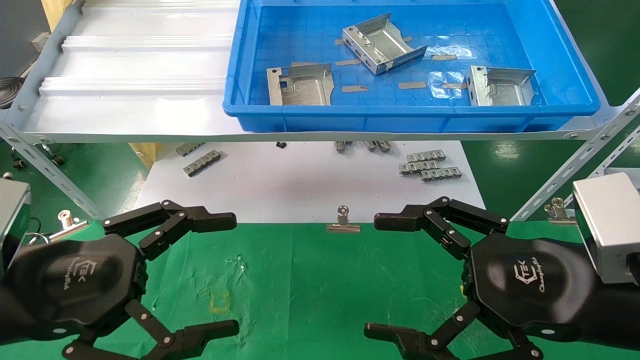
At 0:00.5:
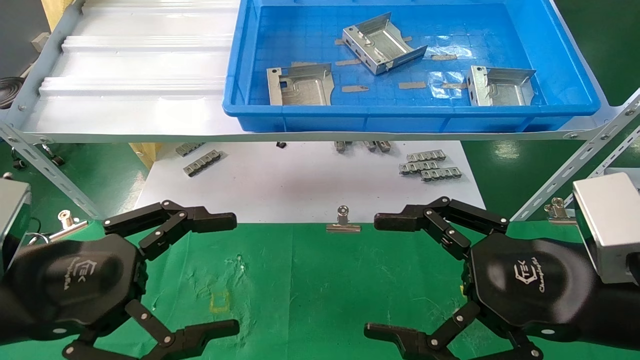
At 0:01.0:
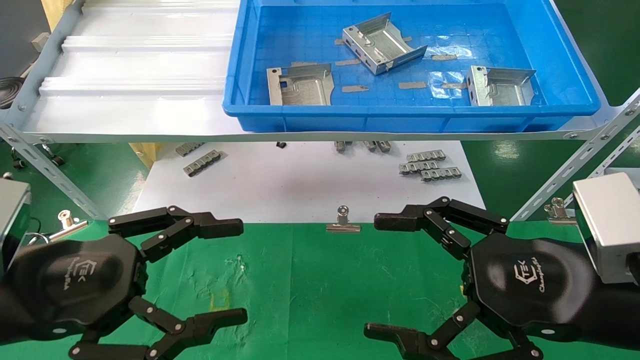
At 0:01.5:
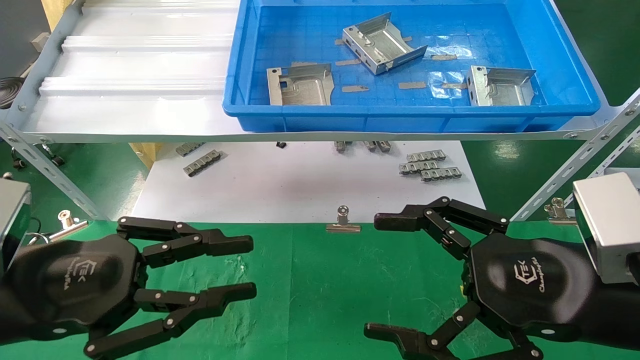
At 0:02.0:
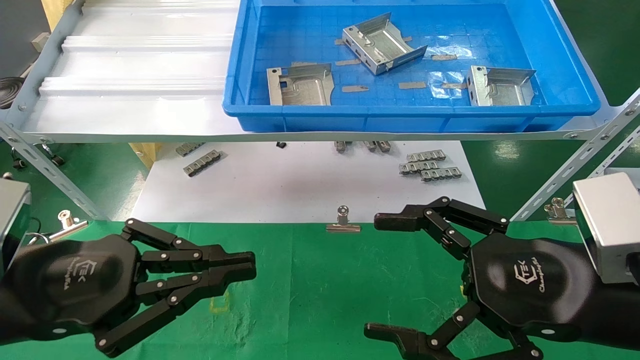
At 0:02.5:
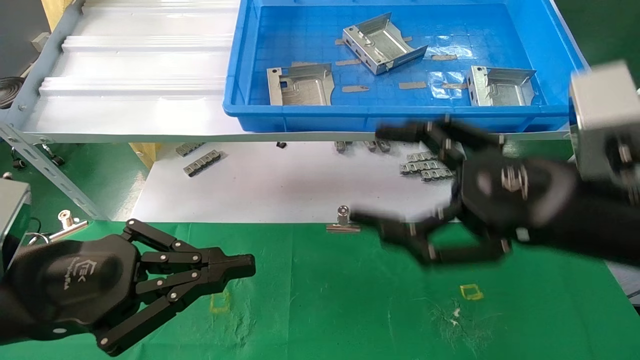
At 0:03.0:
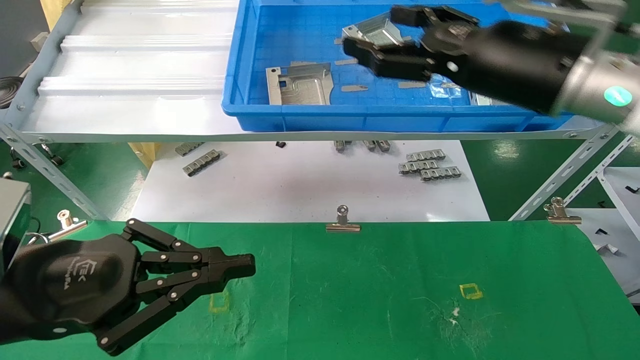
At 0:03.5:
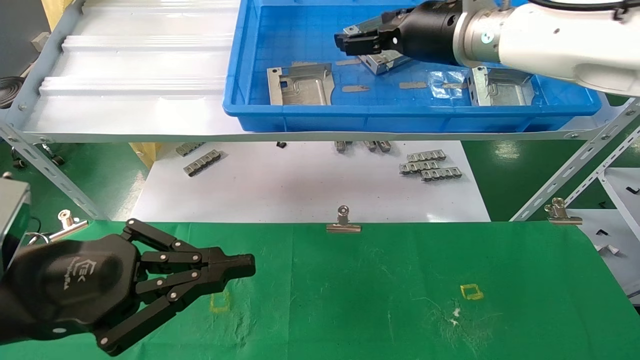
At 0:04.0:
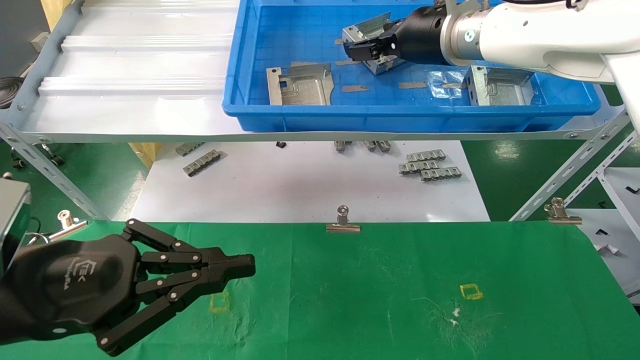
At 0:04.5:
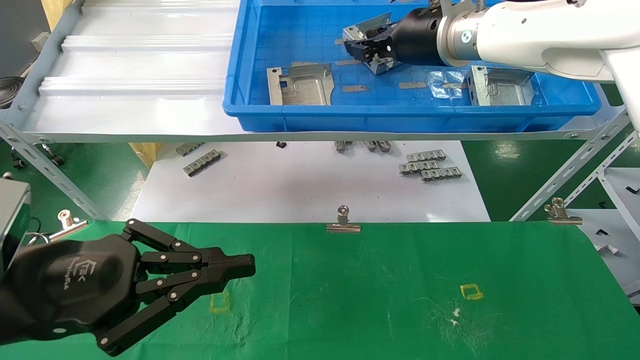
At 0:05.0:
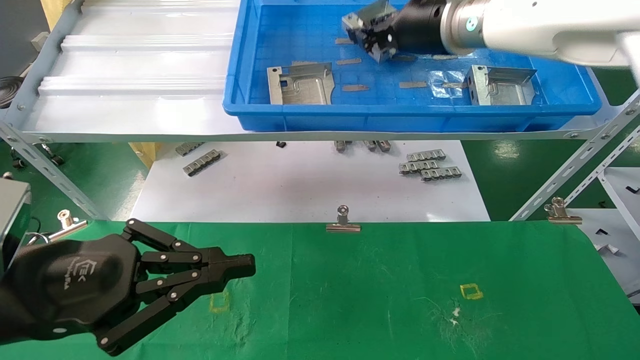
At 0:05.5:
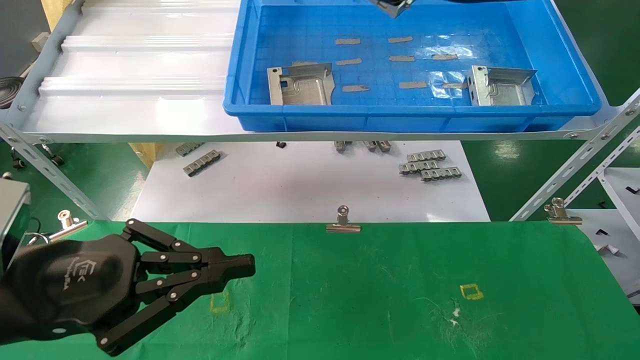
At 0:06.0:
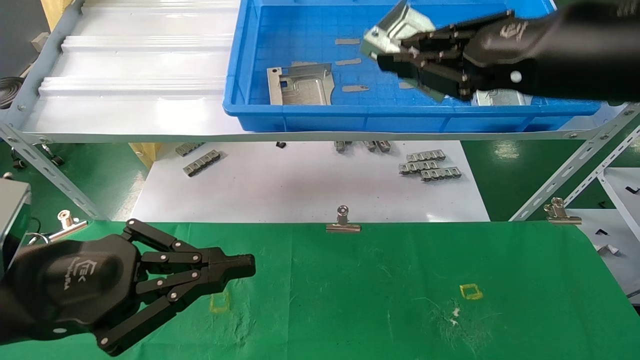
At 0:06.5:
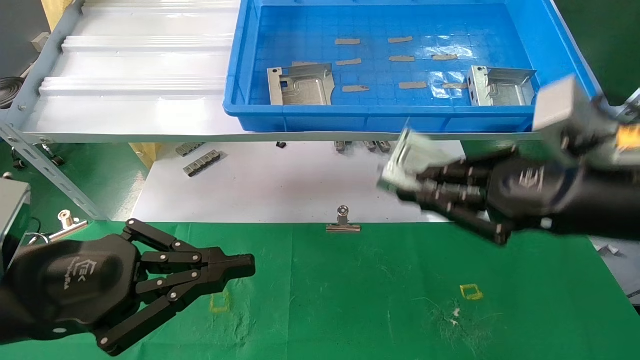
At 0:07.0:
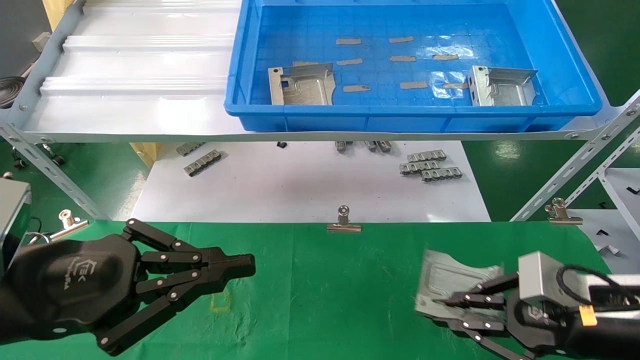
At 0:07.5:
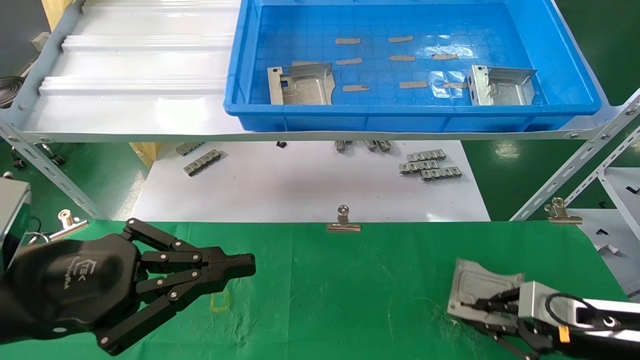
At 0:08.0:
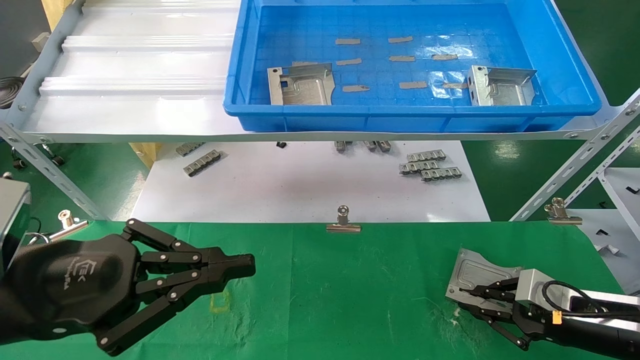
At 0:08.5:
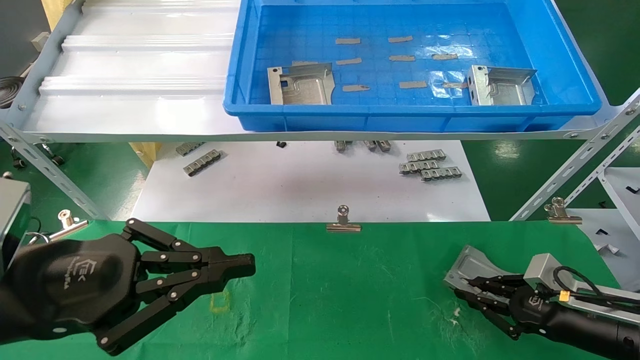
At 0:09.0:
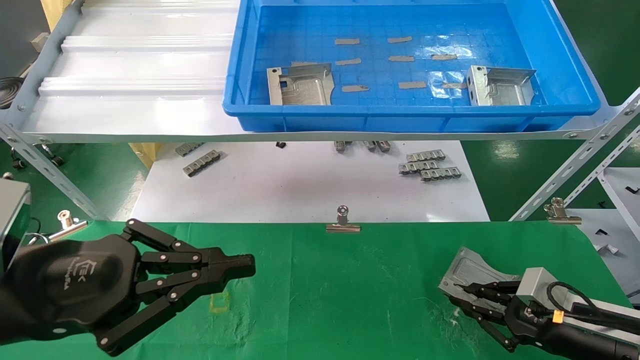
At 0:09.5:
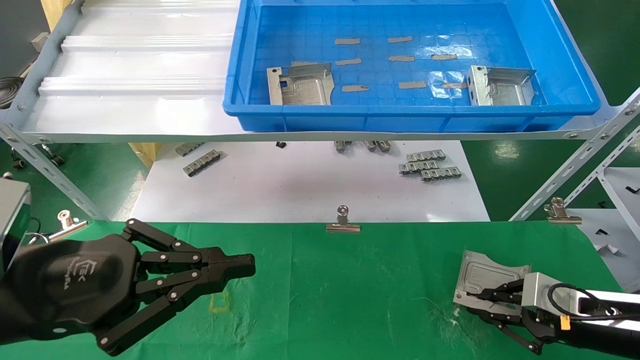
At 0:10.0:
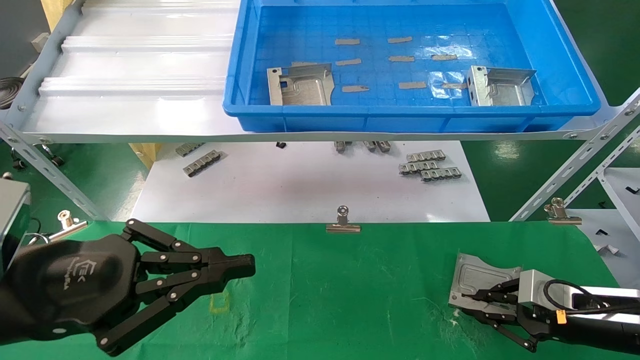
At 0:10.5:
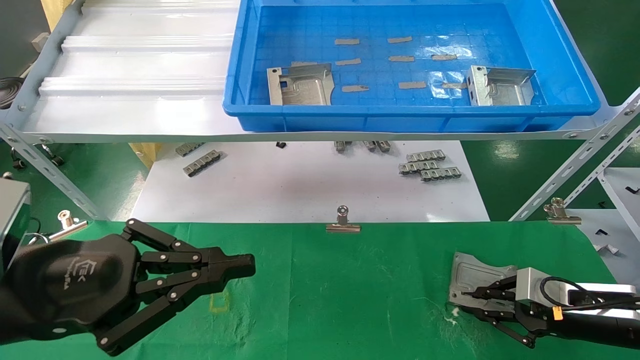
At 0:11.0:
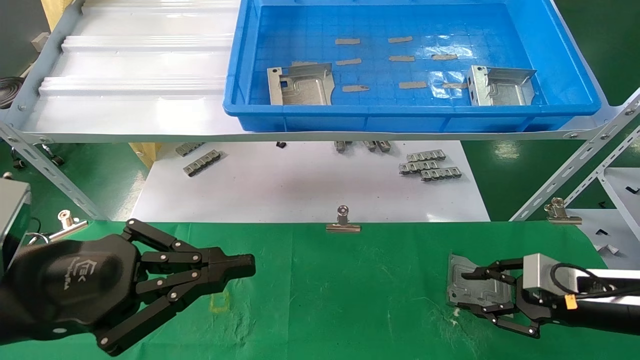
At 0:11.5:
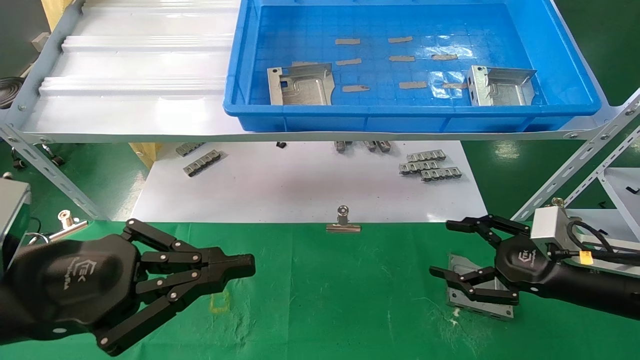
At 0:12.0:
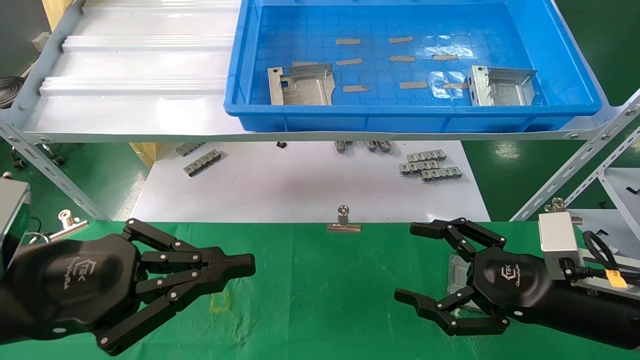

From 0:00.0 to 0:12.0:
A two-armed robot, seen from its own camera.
Task of the whole recording: use the mechanical arm to pick up the parts and place them on the table.
Step, from 0:02.5 to 0:05.0: Pick up the hard drive bracket from the feeding area.
Step, from 0:05.5 to 0:11.0: Place the hard drive bracket into the box.
From 0:00.0 to 0:02.0: The left gripper closes its fingers.
From 0:02.0 to 0:04.0: The right gripper is displaced forward and upward by some 30 cm.
From 0:04.0 to 0:06.0: The right gripper is displaced backward and to the right by roughly 20 cm, and closes its fingers.
From 0:06.0 to 0:08.0: The right gripper travels downward and to the right by about 35 cm.
From 0:08.0 to 0:10.0: There are only small adjustments of the grippers.
From 0:10.0 to 0:12.0: The right gripper goes approximately 10 cm to the left and upward, and opens its fingers.

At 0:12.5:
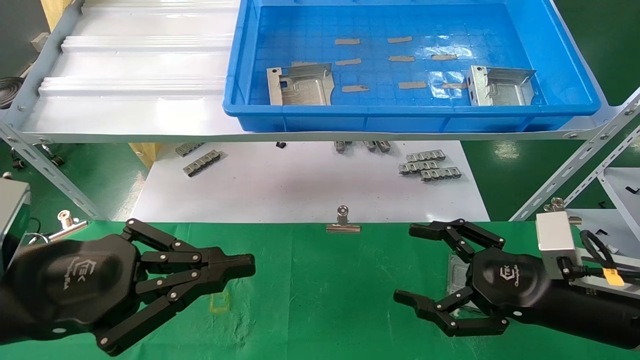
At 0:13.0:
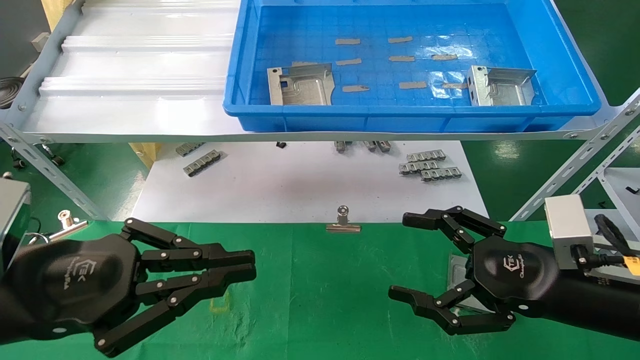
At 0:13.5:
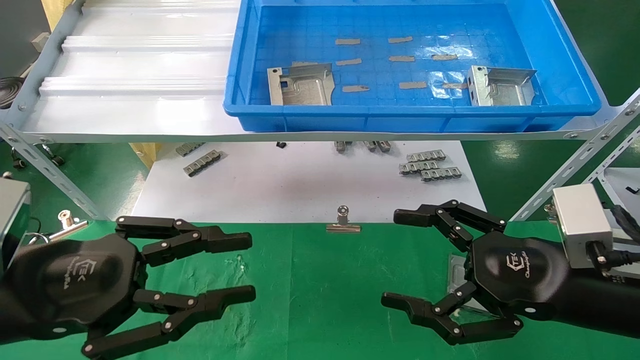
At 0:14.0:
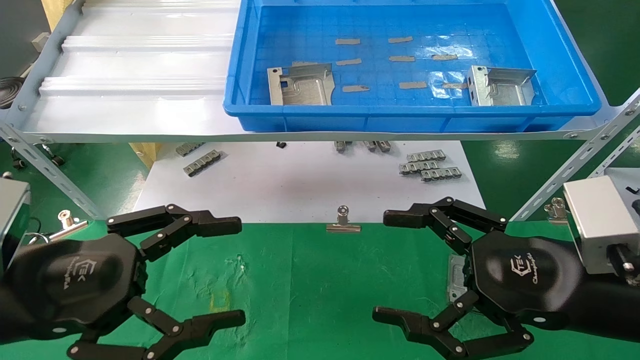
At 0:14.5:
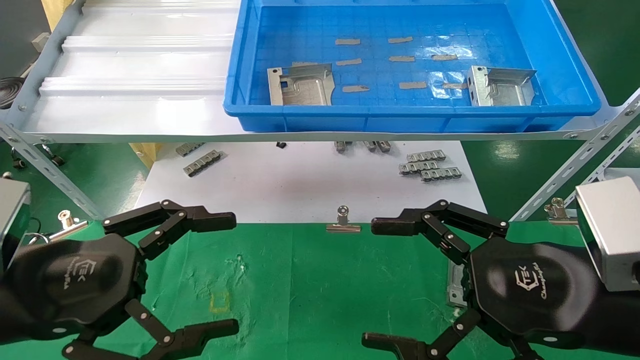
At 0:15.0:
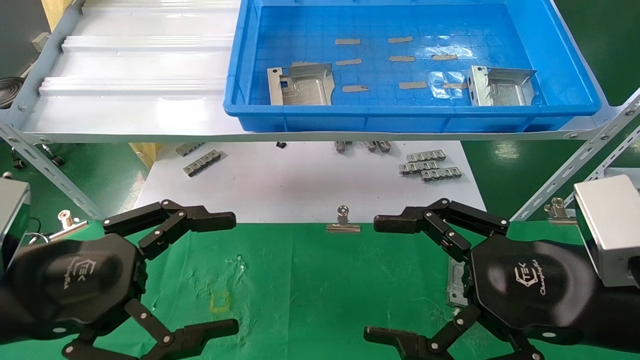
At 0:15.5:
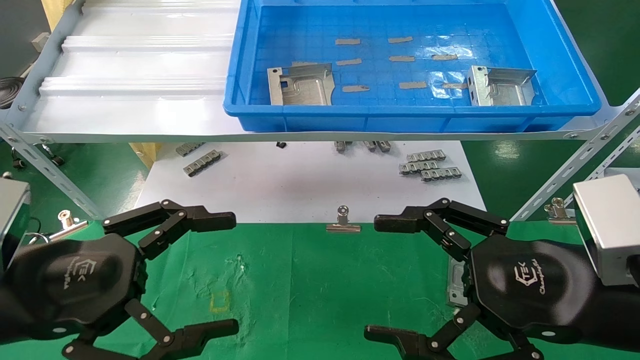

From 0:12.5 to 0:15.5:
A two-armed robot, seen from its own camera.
Task of the whole recording: use the mechanical arm to pick up the parts and place them on the table.
From 0:12.5 to 0:14.0: The right gripper heads upward and backward, covering about 10 cm. The left gripper opens its fingers.
From 0:14.0 to 0:15.5: There are only small adjustments of the grippers.
